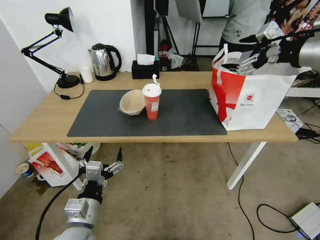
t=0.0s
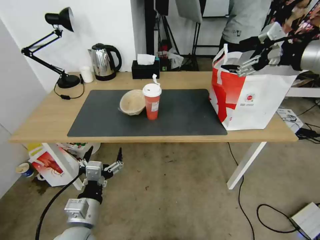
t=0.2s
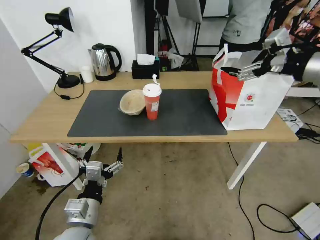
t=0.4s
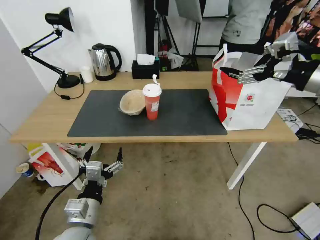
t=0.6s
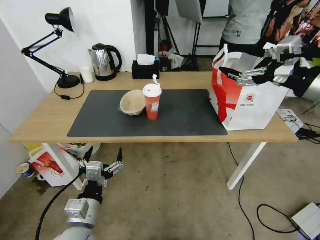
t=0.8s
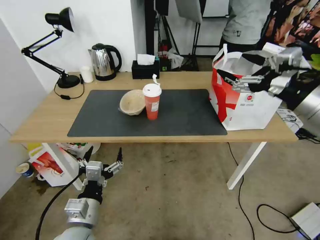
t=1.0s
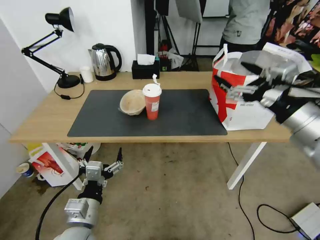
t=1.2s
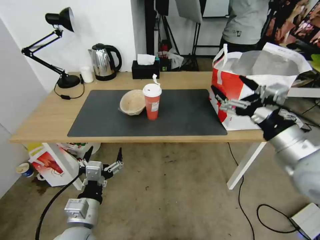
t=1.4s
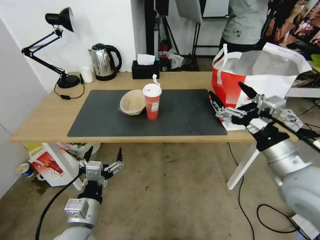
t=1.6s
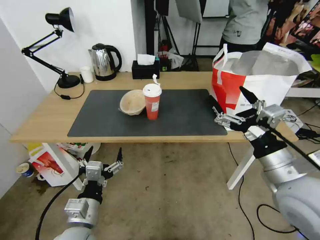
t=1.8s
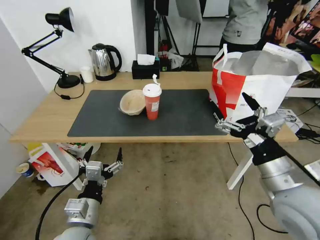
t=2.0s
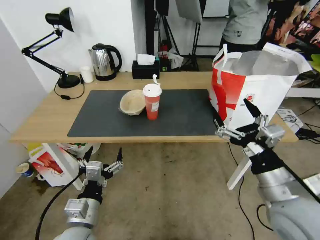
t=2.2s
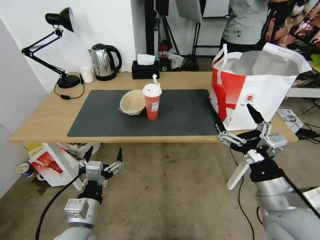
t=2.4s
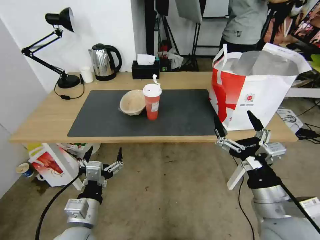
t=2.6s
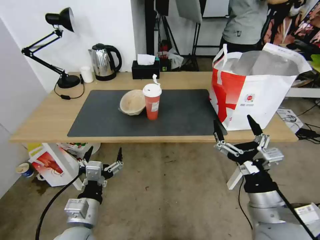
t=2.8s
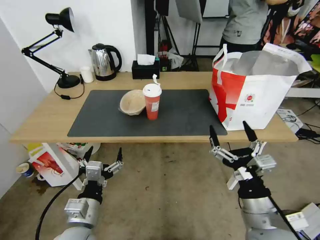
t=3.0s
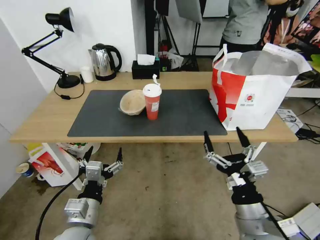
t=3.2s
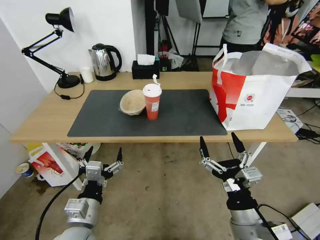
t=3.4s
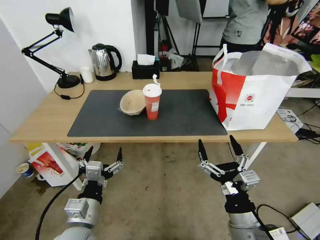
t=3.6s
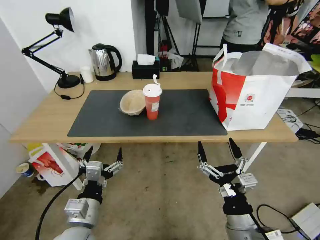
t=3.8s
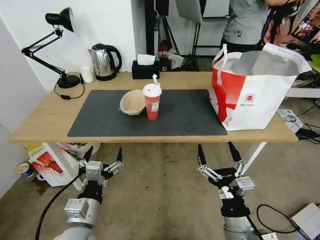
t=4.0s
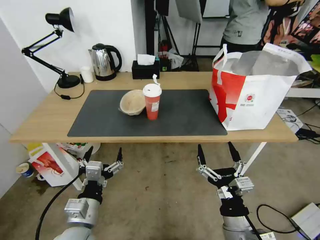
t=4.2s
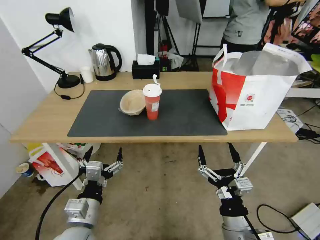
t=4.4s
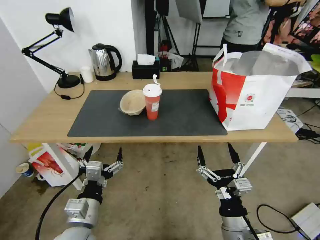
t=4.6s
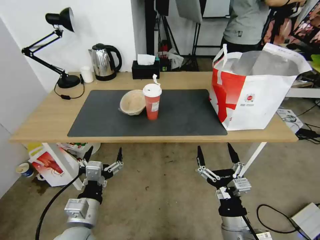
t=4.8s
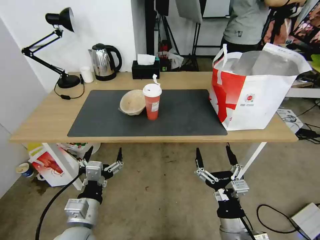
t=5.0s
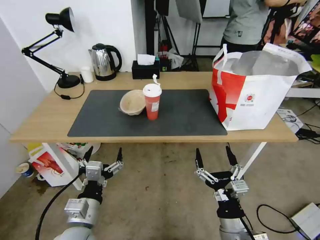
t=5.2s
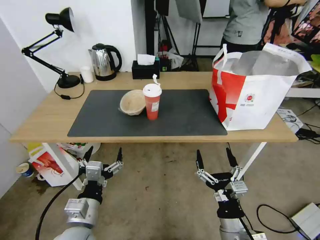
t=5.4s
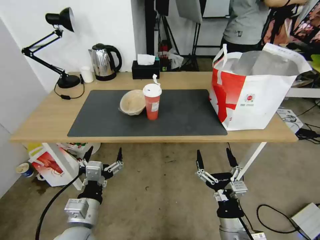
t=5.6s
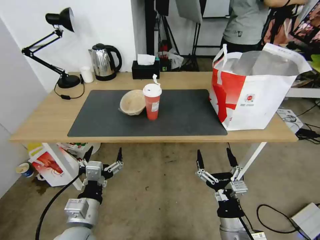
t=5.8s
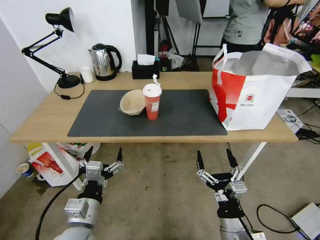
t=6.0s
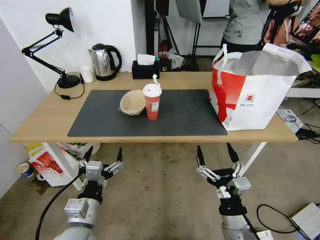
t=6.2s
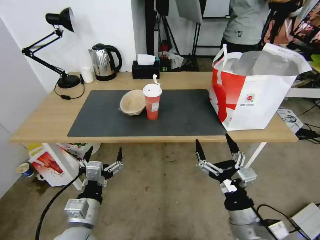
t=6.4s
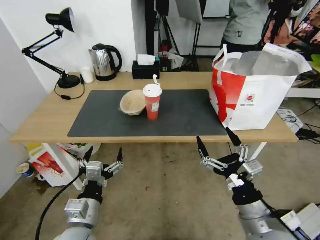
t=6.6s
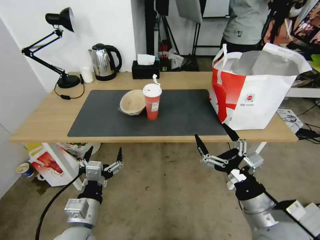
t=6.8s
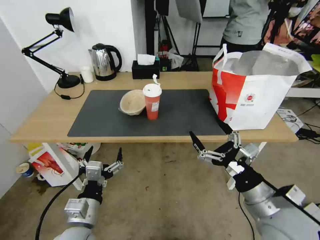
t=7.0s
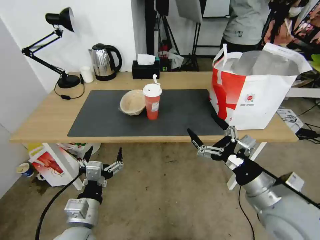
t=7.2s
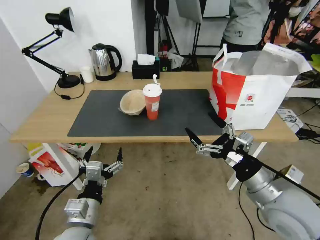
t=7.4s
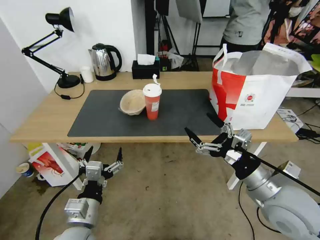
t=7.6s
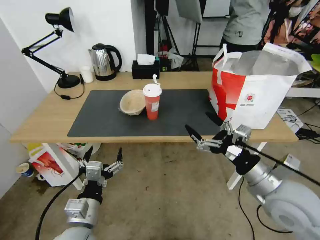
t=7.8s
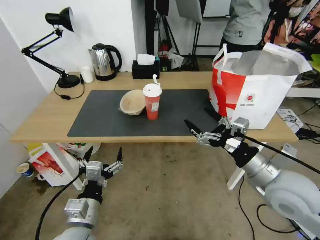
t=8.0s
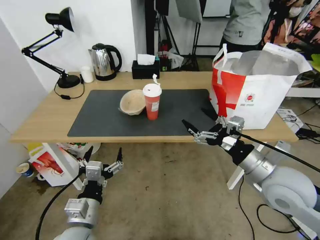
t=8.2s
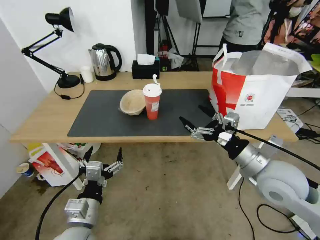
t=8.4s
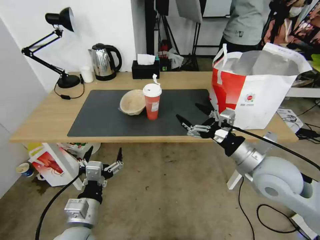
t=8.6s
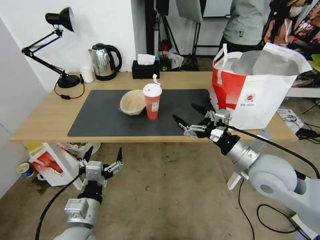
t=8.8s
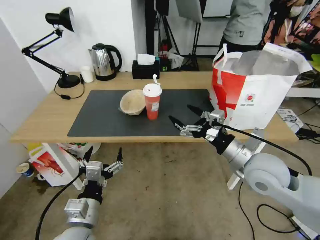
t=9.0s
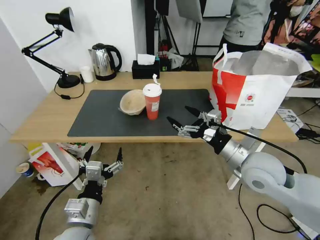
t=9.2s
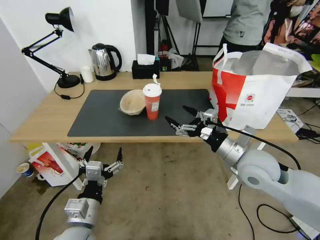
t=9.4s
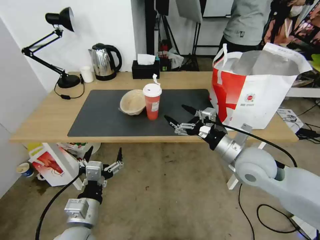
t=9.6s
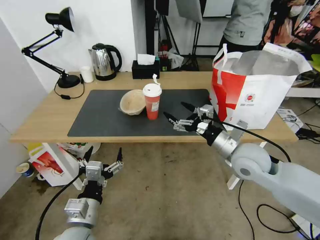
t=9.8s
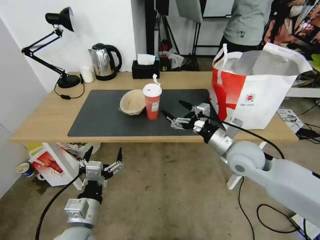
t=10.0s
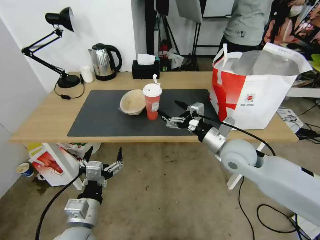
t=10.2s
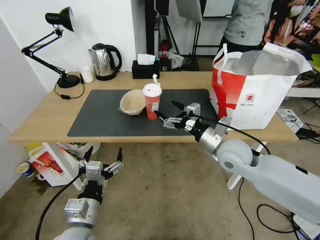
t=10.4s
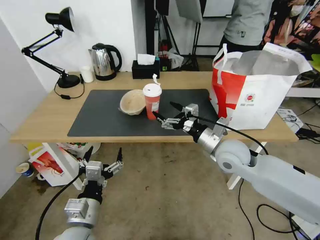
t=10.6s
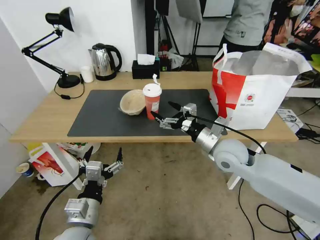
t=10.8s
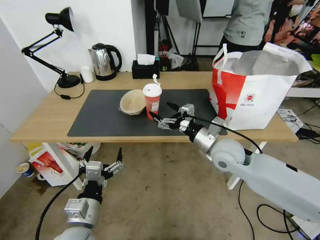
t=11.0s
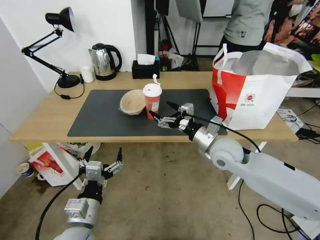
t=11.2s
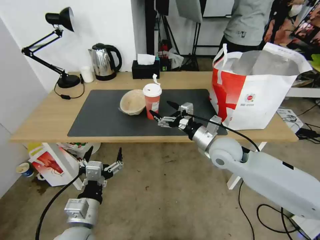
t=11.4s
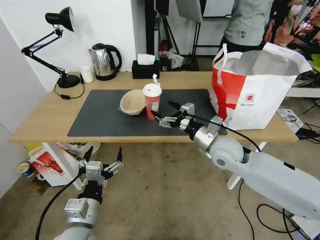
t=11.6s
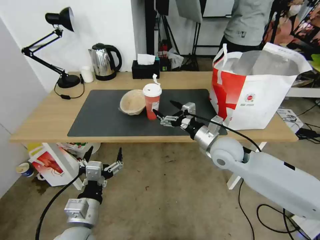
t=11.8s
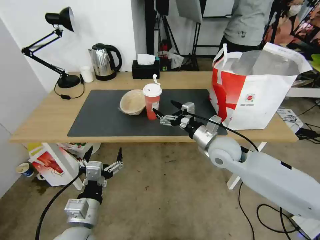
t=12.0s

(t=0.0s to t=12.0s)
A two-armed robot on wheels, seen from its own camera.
Task of the whole recording: Pick up the trash from the table and place it into the takeout bag.
t=0.0s - t=1.6s: The right gripper goes approximately 30 cm downward, backward and to the left.
t=1.6s - t=3.0s: The right gripper is displaced downward, backward and to the left by roughly 15 cm.
t=3.0s - t=4.4s: The right gripper goes roughly 5 cm downward.
t=4.4s - t=6.0s: The grippers stay close to where they were, moving slightly.
t=6.0s - t=7.6s: The right gripper heads upward, forward and to the right, covering some 20 cm.
t=7.6s - t=9.0s: The right gripper heads forward, covering roughly 10 cm.
t=9.0s - t=10.4s: The right gripper goes approximately 5 cm forward.
t=10.4s - t=12.0s: The grippers move only a little.

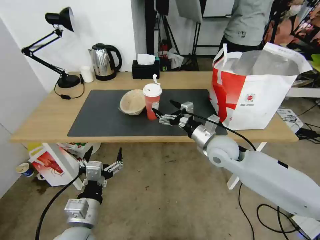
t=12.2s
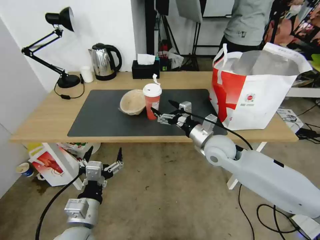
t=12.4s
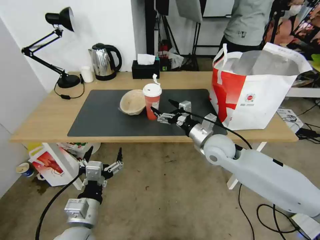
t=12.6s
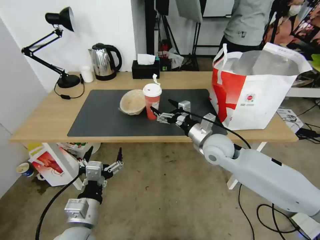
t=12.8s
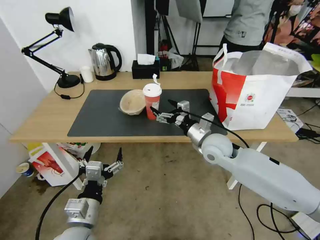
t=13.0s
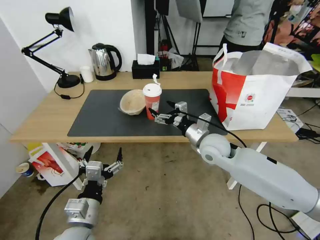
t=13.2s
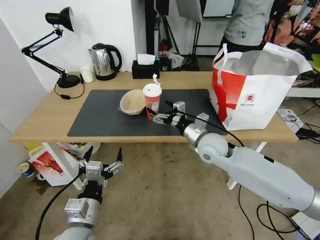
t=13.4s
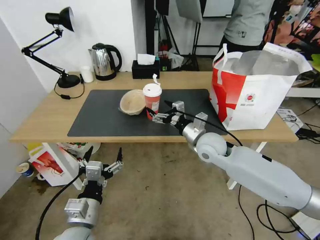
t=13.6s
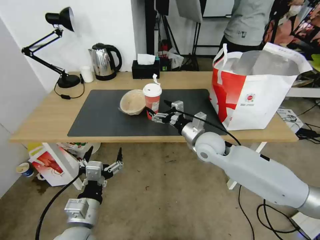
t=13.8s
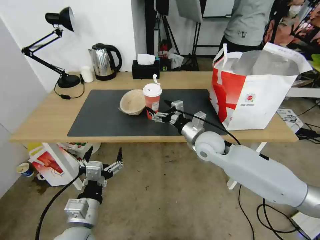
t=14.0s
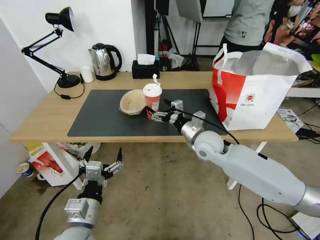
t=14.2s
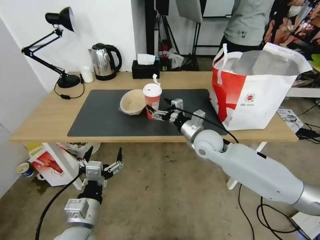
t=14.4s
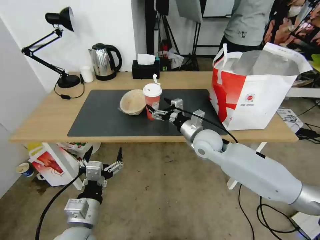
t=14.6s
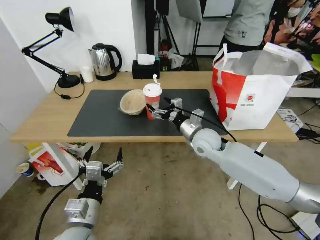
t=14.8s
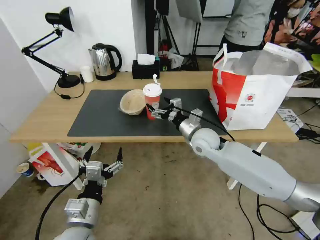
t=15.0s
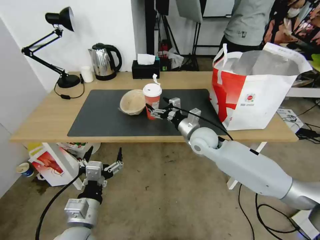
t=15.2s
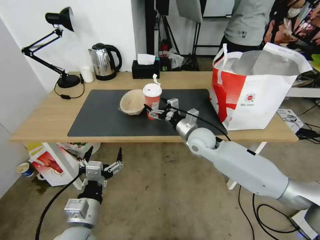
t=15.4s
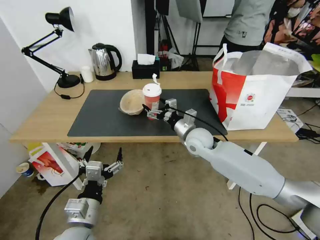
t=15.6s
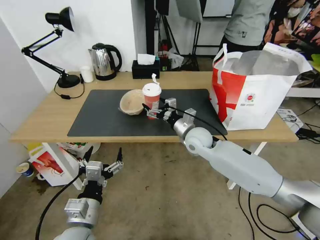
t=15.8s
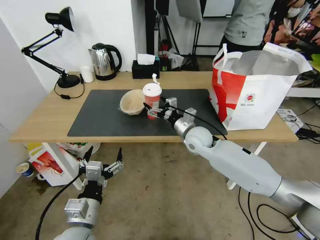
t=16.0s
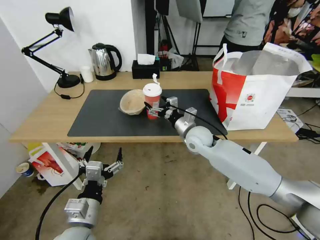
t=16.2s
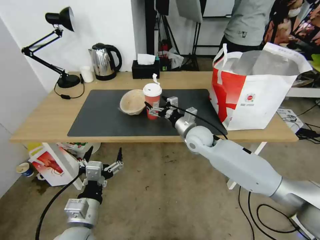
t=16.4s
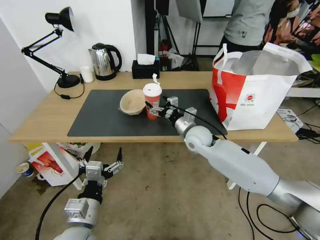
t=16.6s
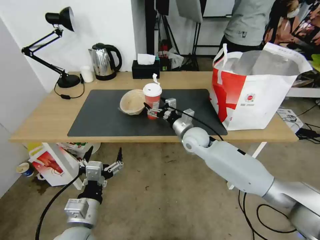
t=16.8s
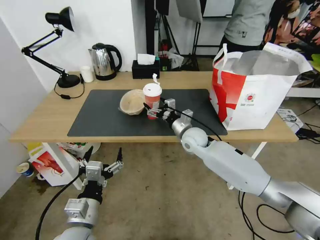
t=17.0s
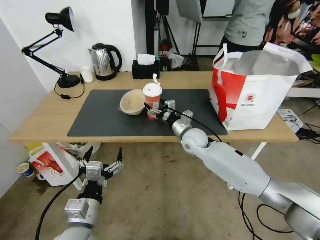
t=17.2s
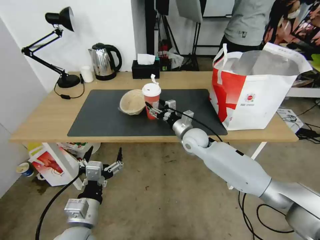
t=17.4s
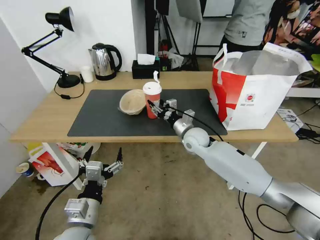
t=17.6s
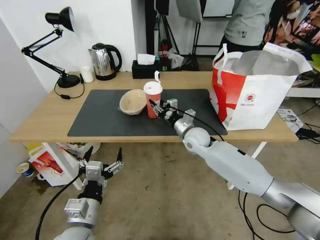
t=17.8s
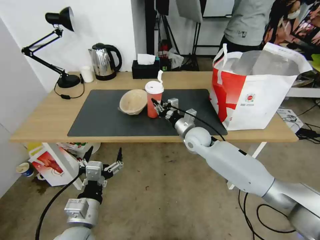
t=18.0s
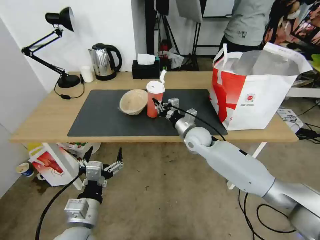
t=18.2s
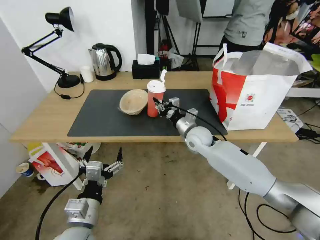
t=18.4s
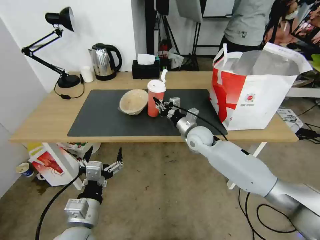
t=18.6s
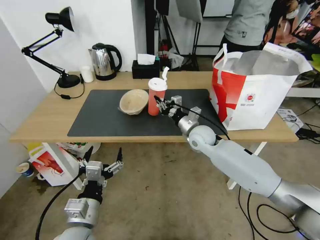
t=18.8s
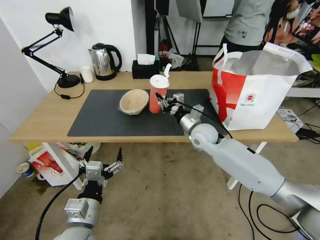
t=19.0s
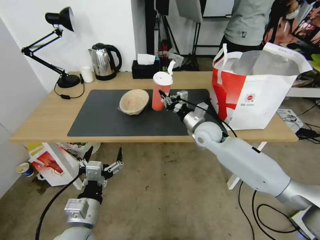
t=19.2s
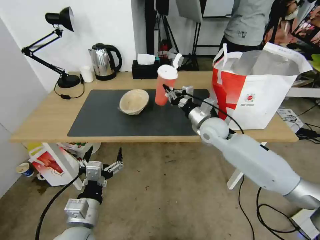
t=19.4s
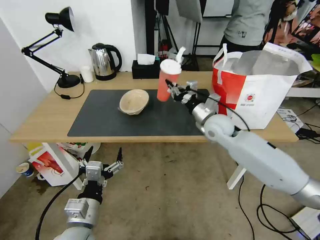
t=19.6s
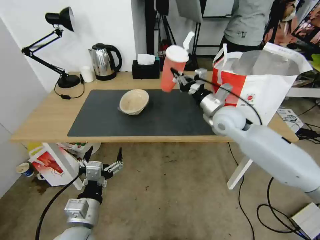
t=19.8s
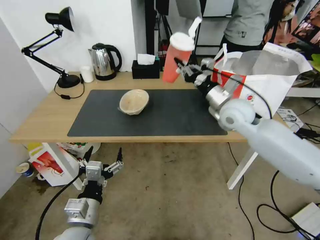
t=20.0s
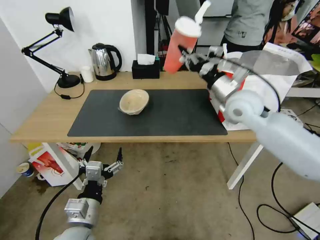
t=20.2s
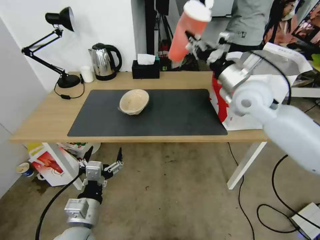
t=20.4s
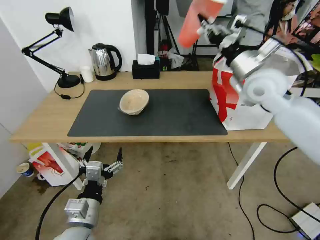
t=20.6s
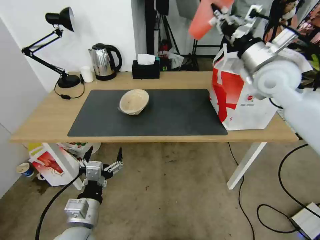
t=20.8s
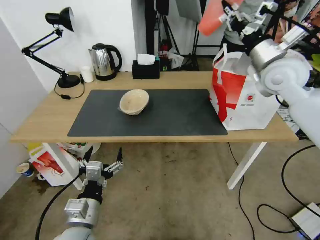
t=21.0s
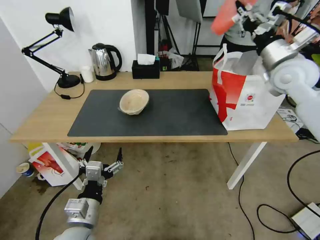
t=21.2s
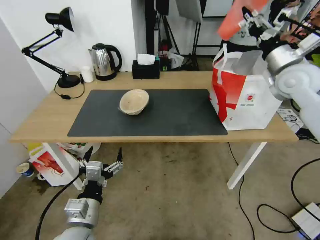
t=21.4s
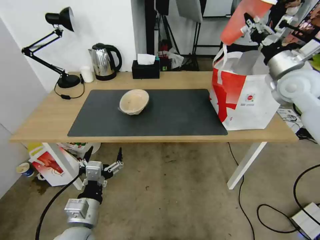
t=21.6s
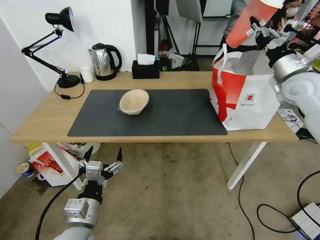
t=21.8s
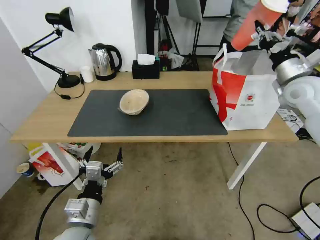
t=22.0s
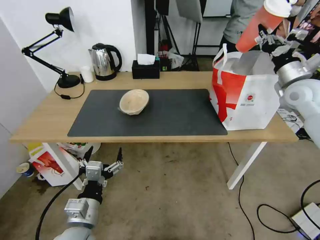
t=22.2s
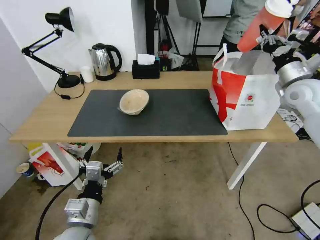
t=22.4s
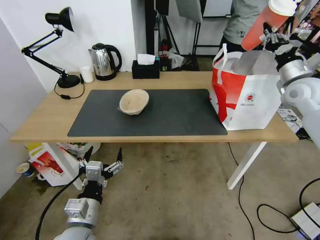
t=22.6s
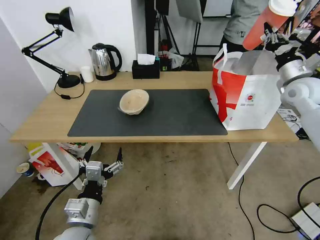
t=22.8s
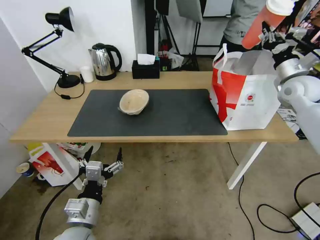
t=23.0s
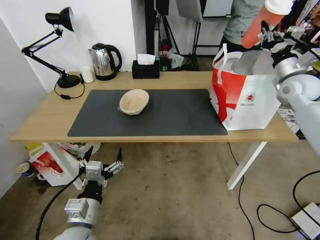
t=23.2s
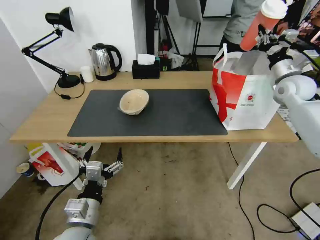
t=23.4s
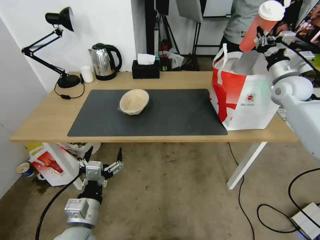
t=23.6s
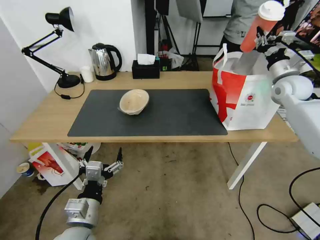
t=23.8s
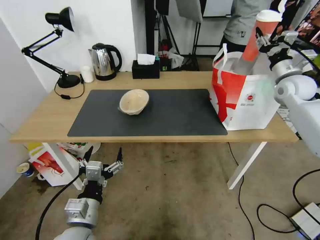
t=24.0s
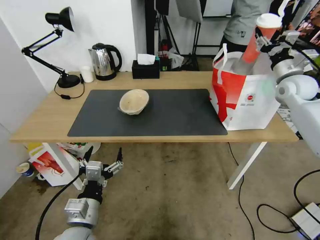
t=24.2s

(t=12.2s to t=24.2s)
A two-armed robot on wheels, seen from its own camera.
Task of the whole recording: Pick up the trash from the table and place it into the takeout bag.
t=12.2s - t=13.8s: The grippers move only a little.
t=13.8s - t=15.2s: The grippers stay close to where they were, moving slightly.
t=15.2s - t=16.6s: The grippers stay close to where they were, moving slightly.
t=16.6s - t=18.2s: The right gripper closes its fingers.
t=18.2s - t=19.8s: The right gripper travels upward and to the right by about 15 cm.
t=19.8s - t=21.2s: The right gripper travels upward and to the right by approximately 20 cm.
t=21.2s - t=22.6s: The right gripper goes approximately 10 cm to the right and downward.
t=22.6s - t=24.2s: The right gripper opens up.
